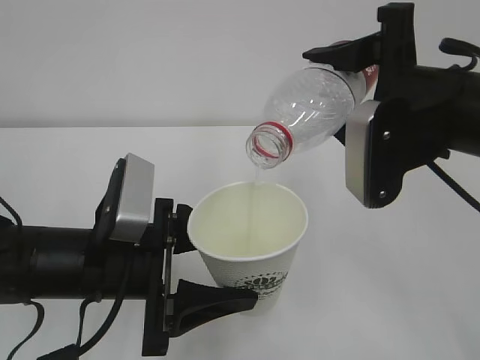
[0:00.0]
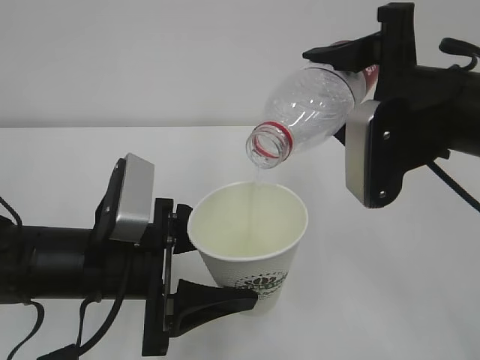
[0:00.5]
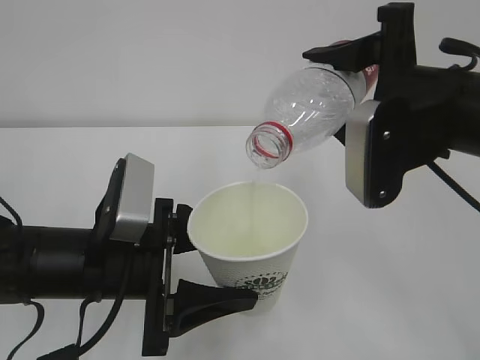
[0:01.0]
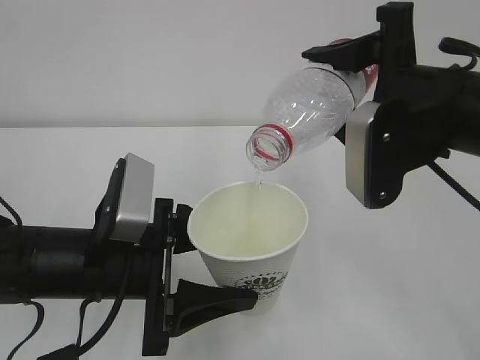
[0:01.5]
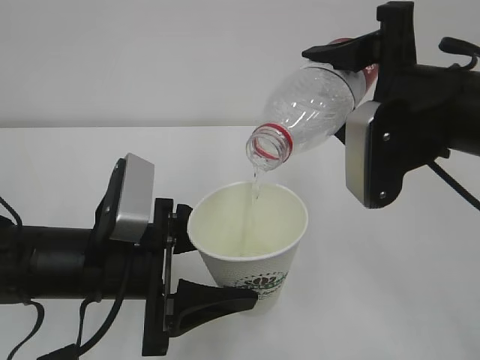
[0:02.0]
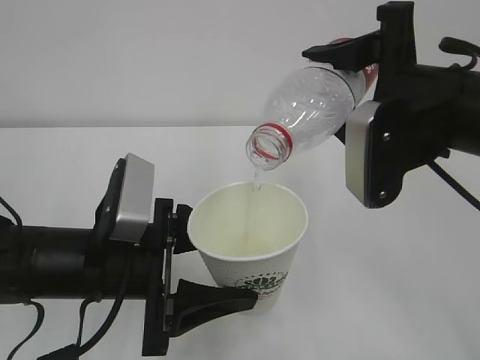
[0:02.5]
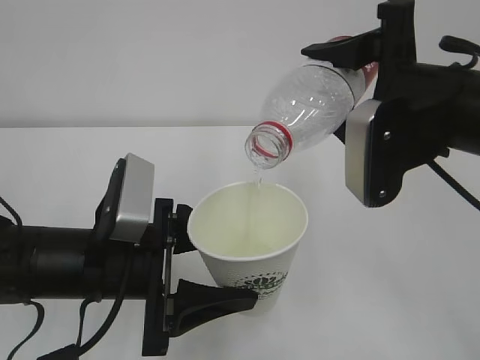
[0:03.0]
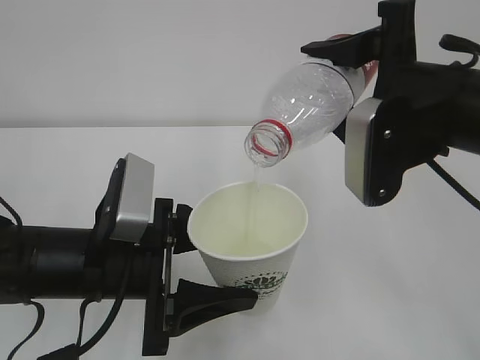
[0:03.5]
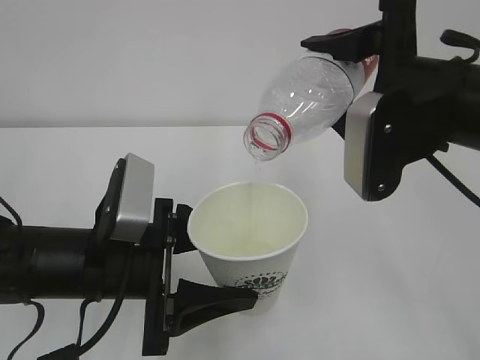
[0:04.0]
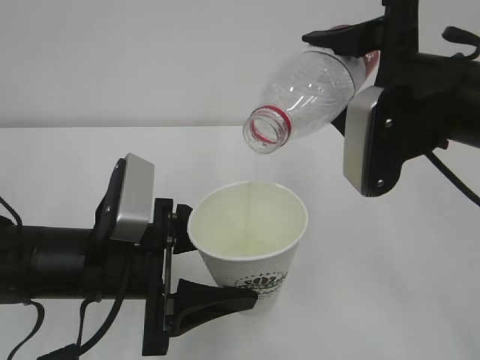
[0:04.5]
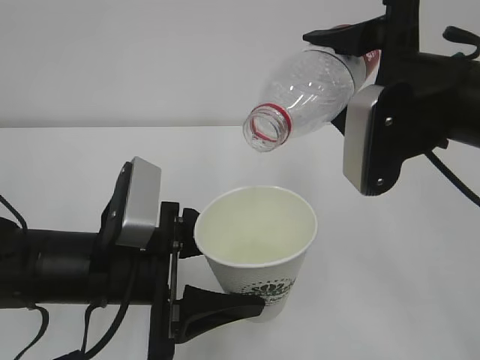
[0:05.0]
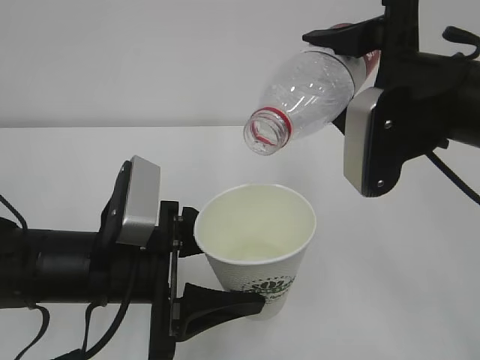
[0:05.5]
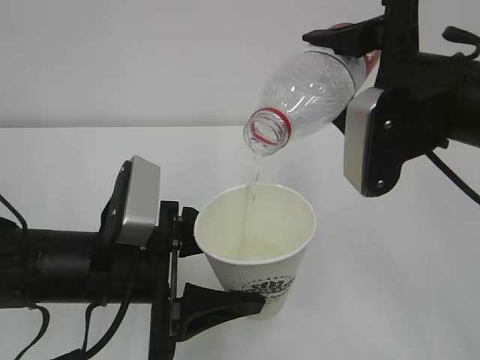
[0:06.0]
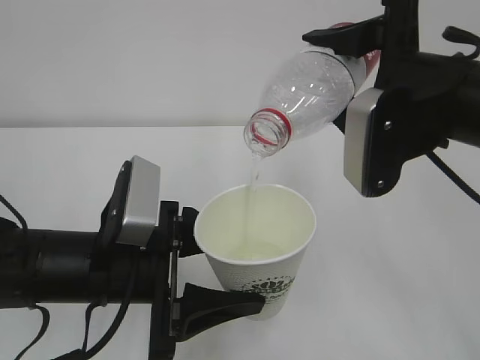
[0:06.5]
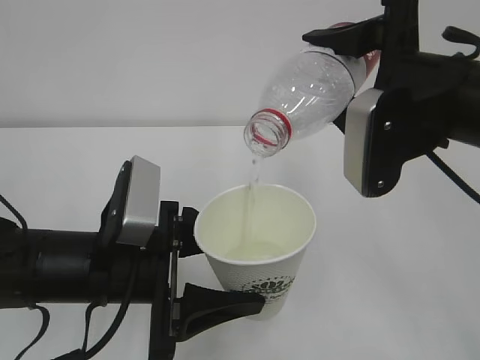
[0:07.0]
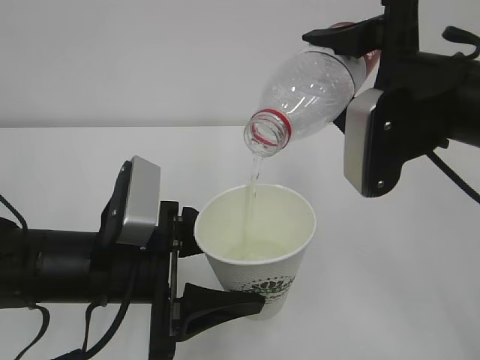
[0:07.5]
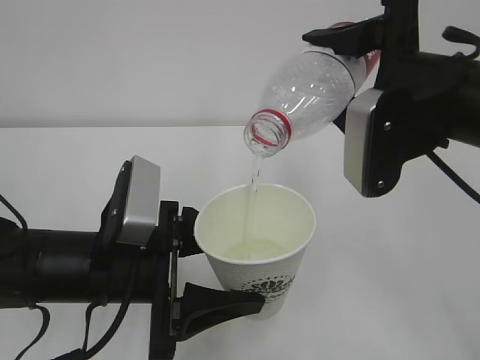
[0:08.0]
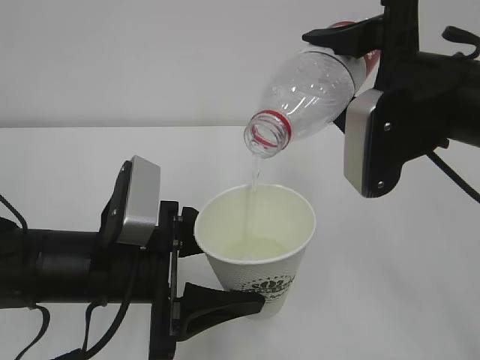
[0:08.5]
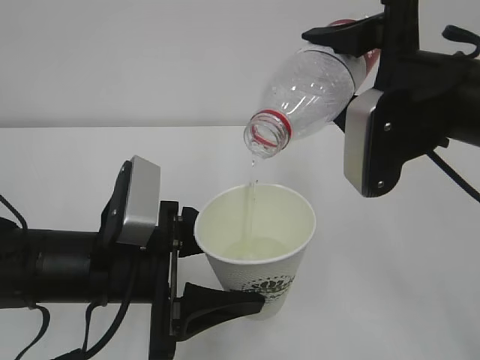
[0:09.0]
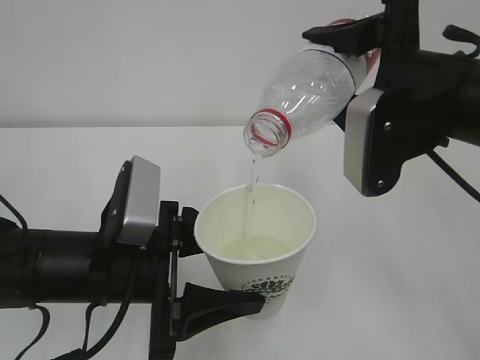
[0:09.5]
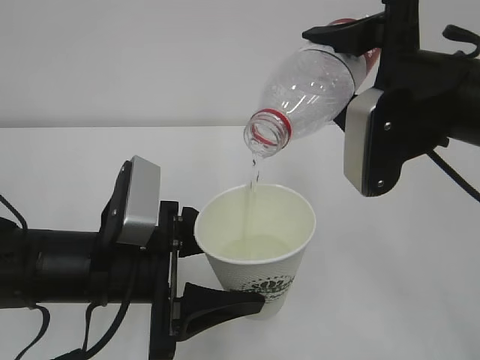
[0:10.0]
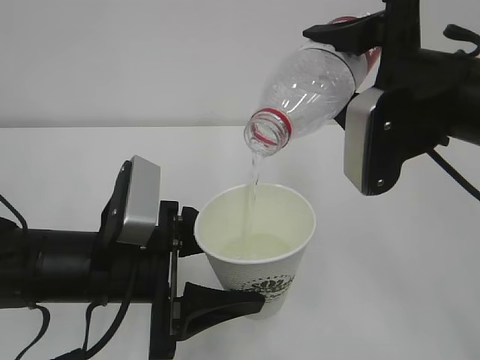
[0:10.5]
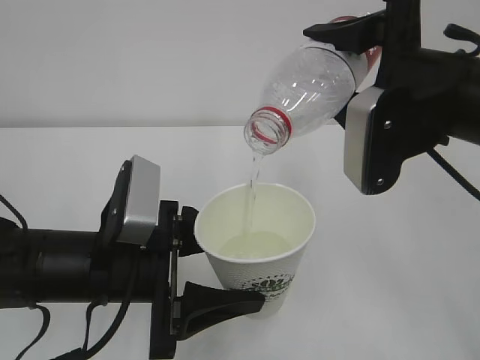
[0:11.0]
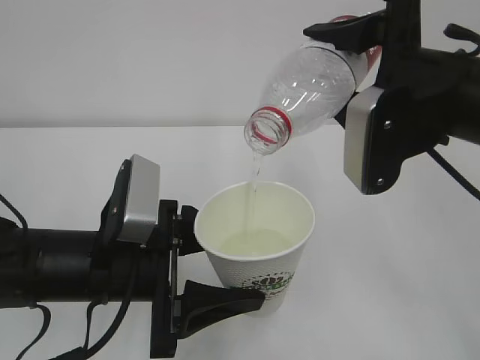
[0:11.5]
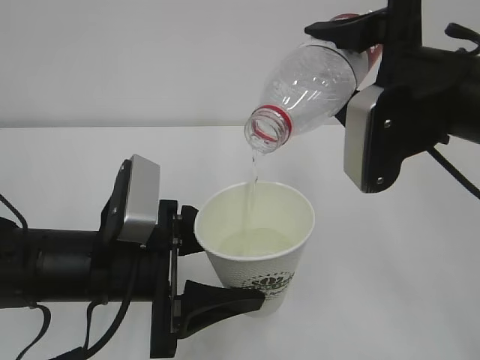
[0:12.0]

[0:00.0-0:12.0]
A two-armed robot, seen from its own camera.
0:00.0 to 0:10.0: The two grippers keep their place.
0:10.0 to 0:12.0: Both grippers stay put.

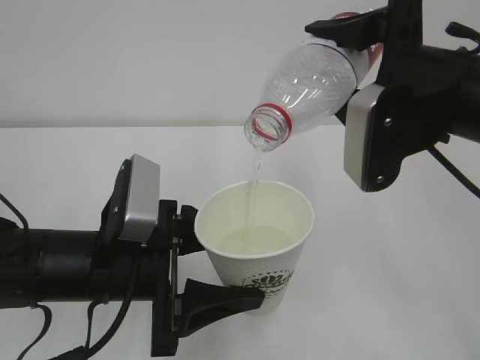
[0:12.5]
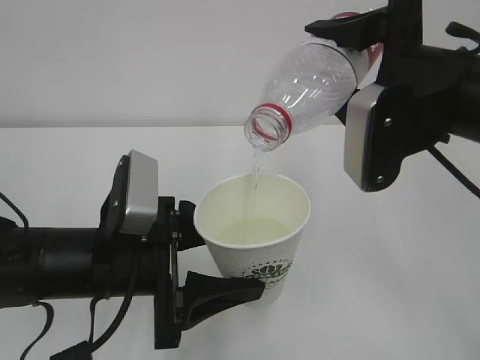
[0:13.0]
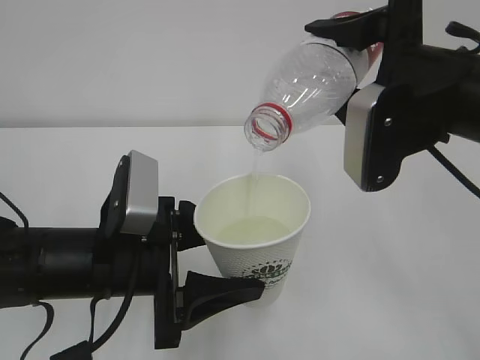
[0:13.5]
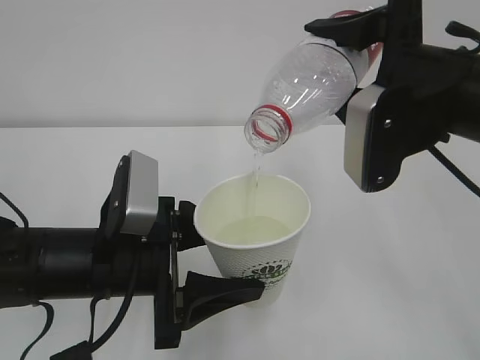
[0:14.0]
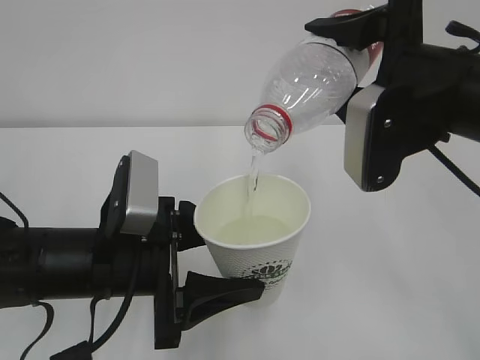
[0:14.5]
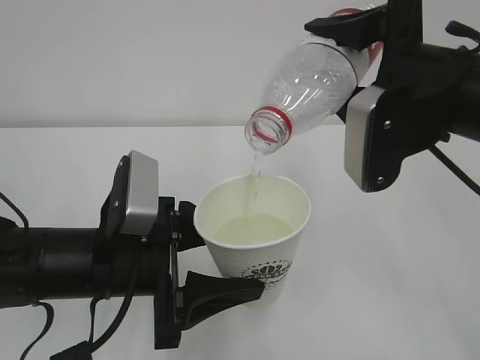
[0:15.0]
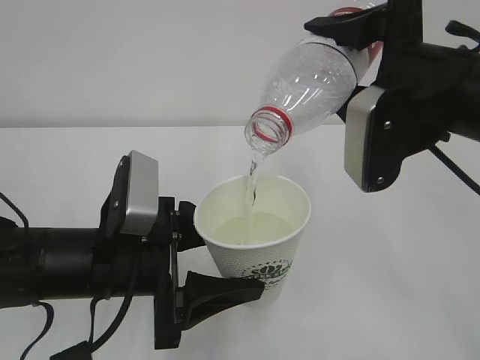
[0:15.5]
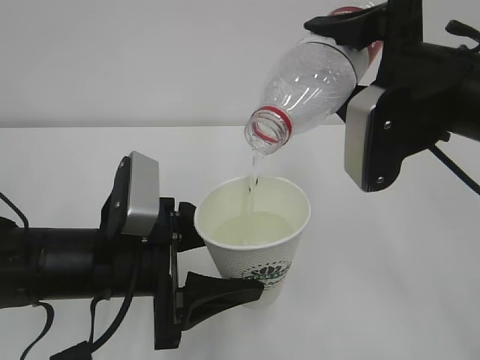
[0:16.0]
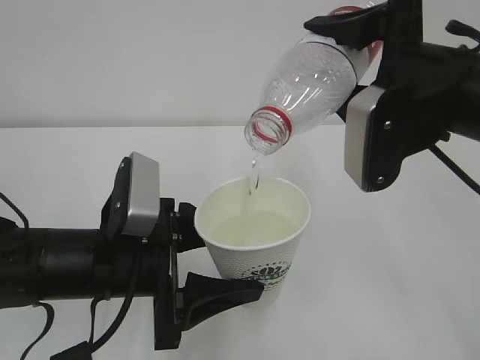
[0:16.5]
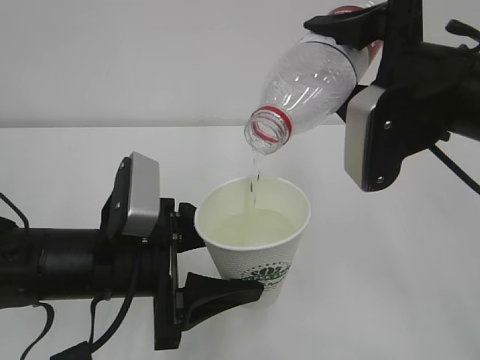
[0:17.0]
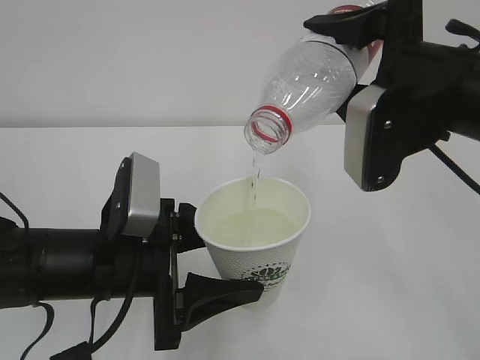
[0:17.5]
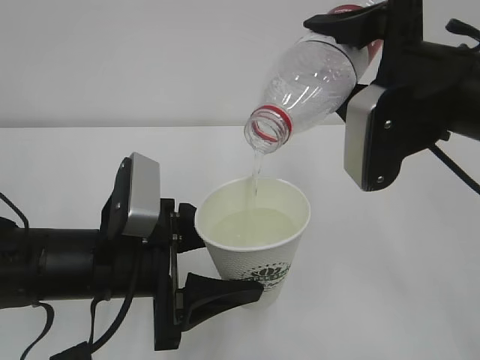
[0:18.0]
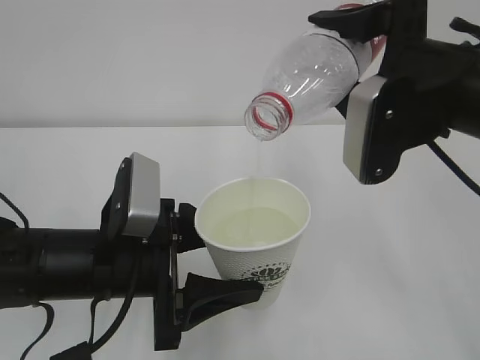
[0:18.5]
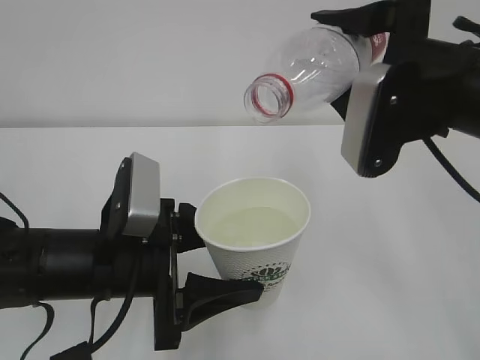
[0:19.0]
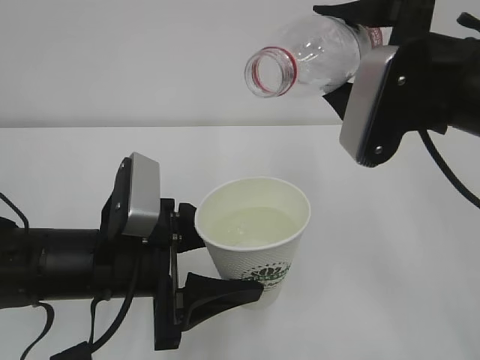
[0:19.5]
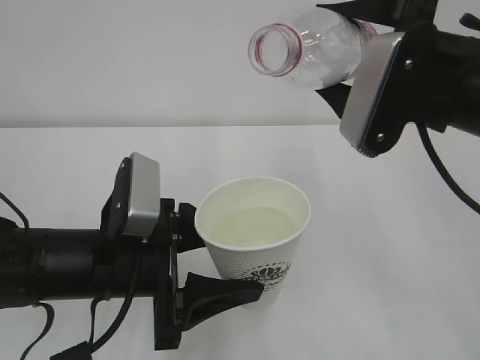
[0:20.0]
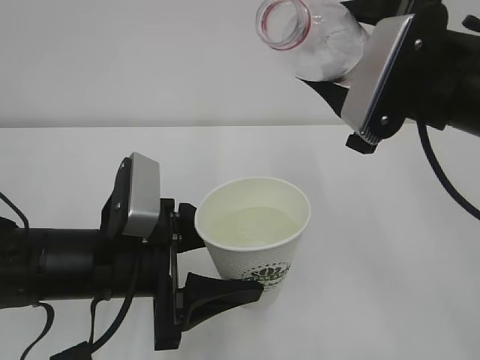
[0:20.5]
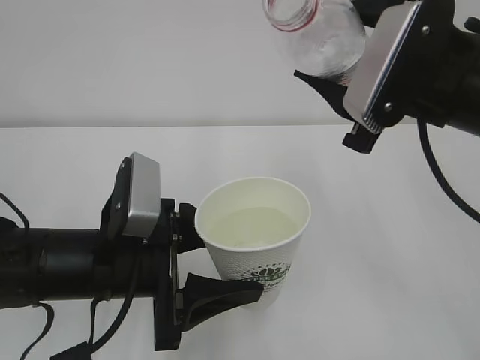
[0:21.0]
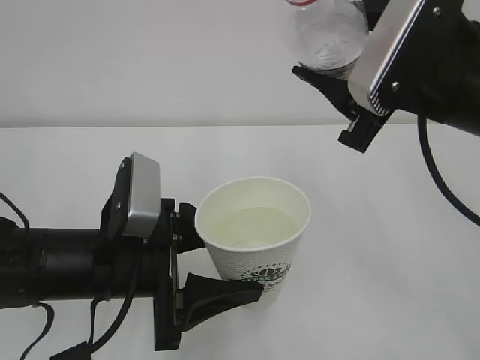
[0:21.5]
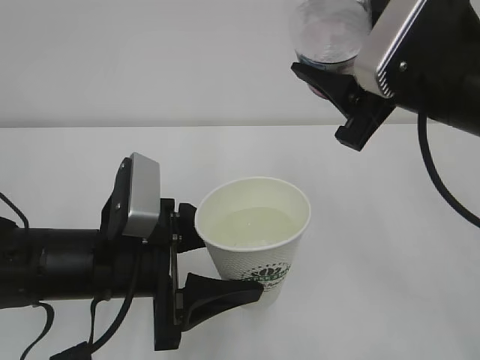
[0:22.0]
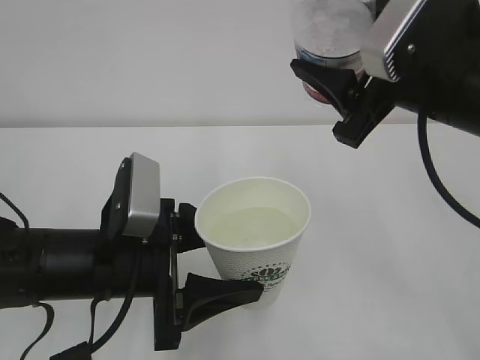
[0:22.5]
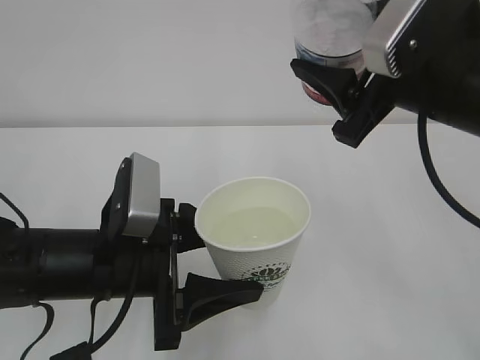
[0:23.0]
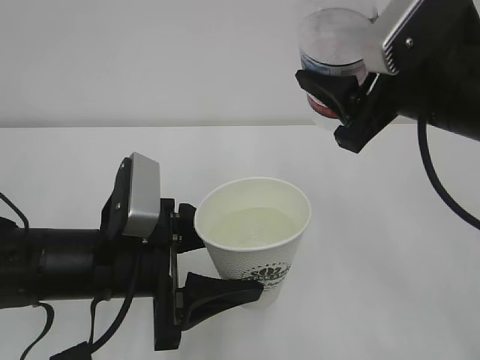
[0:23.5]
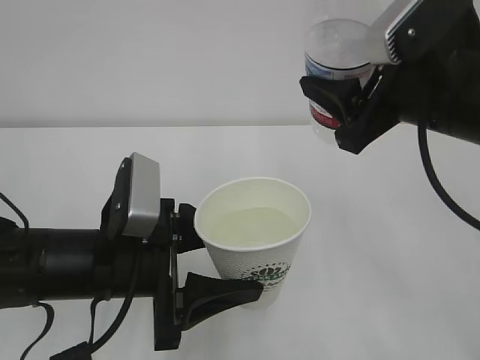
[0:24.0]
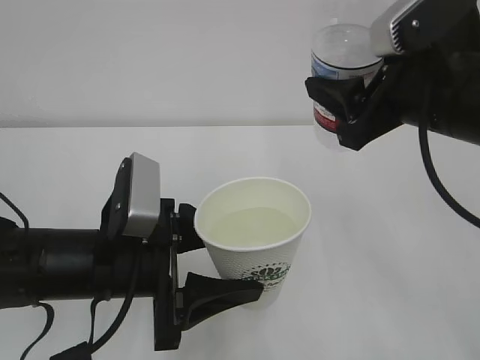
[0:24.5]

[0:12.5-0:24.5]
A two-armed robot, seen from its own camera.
0:12.5 to 0:18.5: Both grippers stay put.

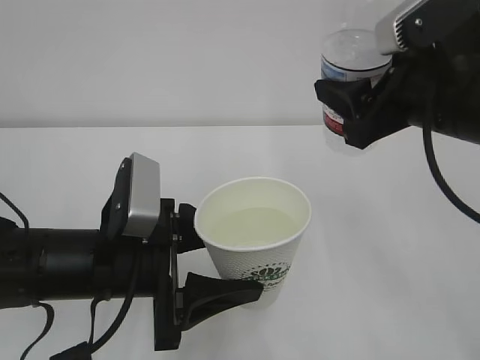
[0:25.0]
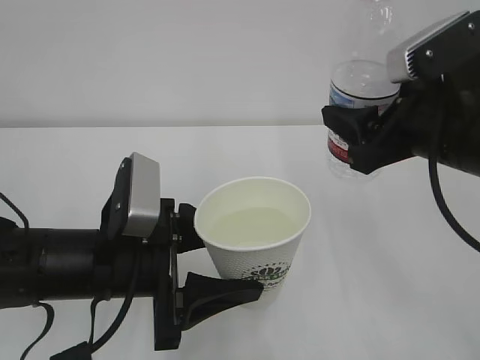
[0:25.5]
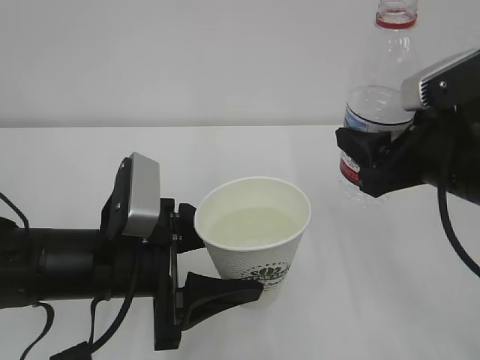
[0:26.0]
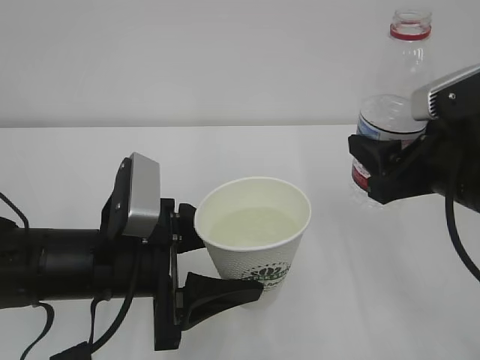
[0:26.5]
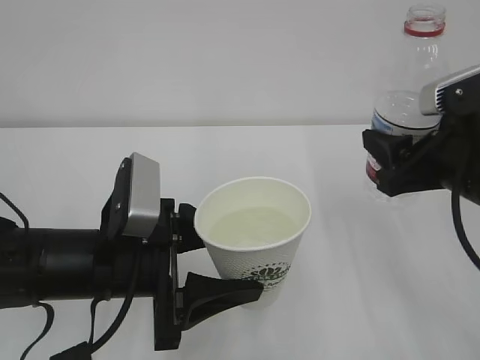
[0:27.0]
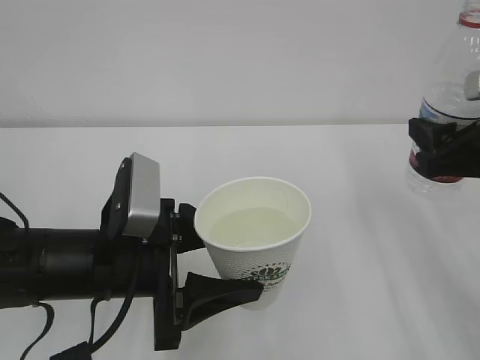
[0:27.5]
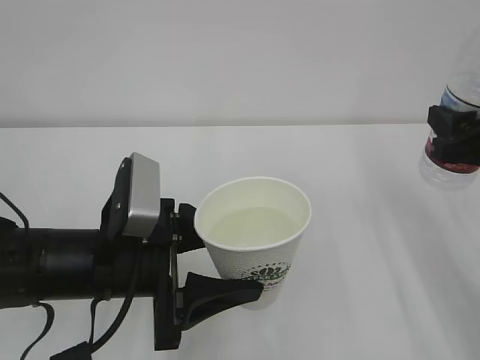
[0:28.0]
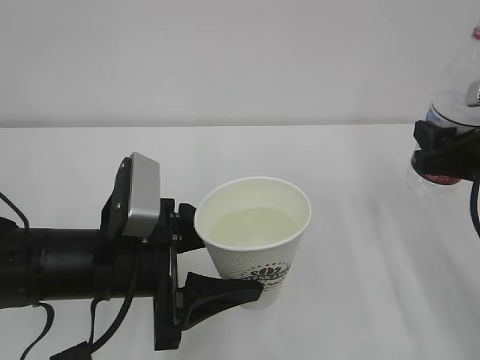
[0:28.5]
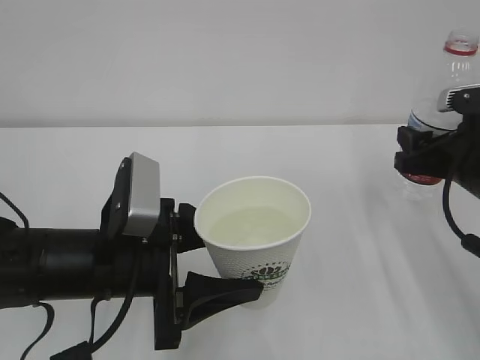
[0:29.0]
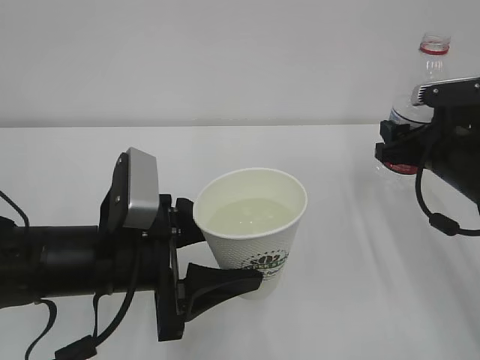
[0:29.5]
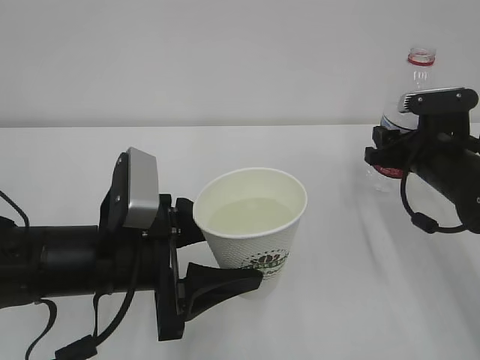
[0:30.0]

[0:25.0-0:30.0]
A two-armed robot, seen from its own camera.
0:25.0 to 0:27.5: The right gripper goes approximately 10 cm to the right and downward.
0:27.5 to 0:30.0: The right gripper heads forward and downward, covering about 15 cm.
